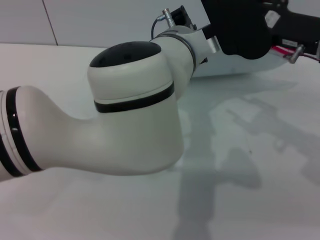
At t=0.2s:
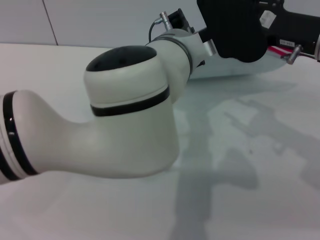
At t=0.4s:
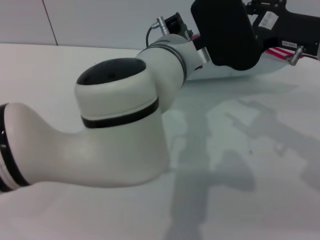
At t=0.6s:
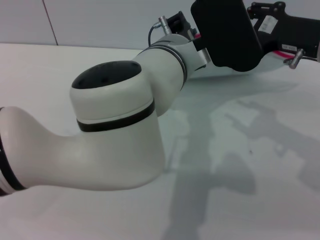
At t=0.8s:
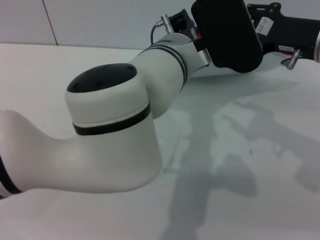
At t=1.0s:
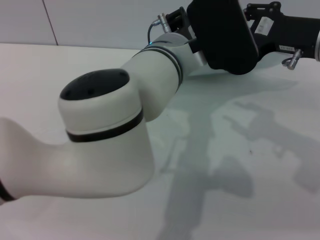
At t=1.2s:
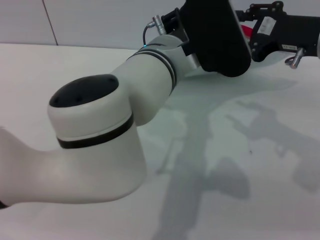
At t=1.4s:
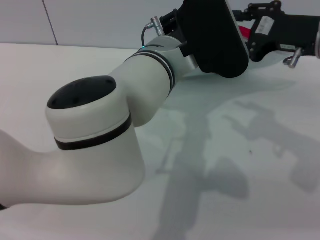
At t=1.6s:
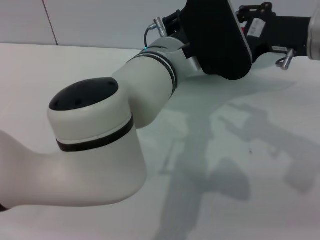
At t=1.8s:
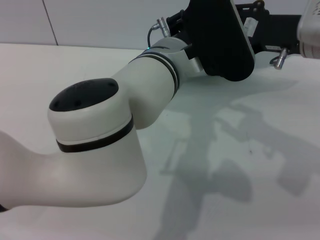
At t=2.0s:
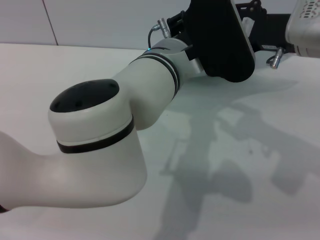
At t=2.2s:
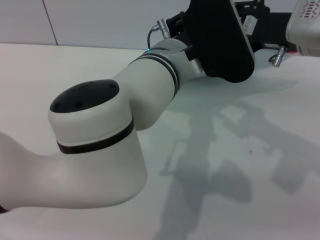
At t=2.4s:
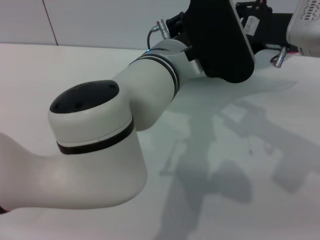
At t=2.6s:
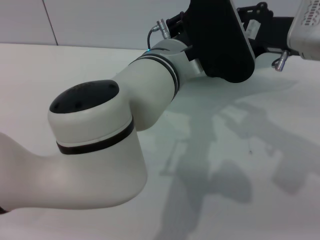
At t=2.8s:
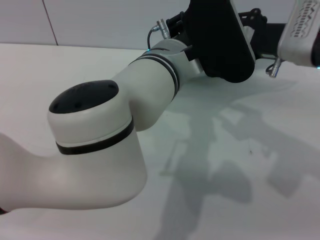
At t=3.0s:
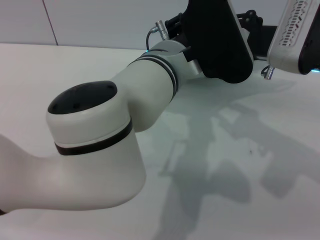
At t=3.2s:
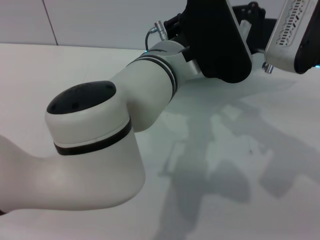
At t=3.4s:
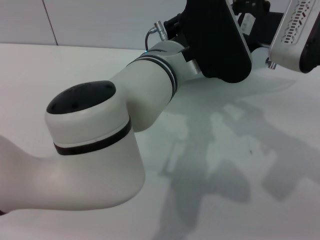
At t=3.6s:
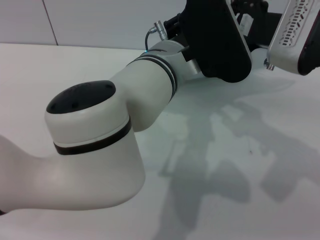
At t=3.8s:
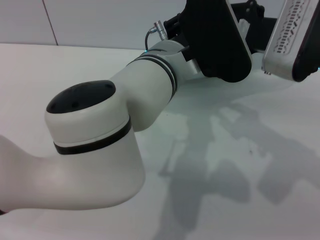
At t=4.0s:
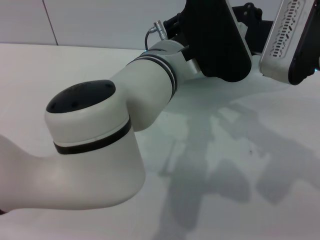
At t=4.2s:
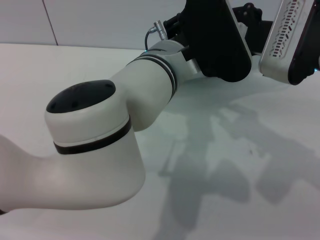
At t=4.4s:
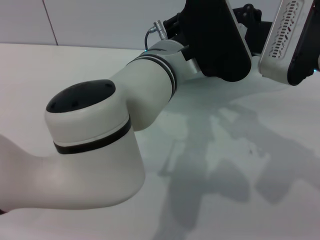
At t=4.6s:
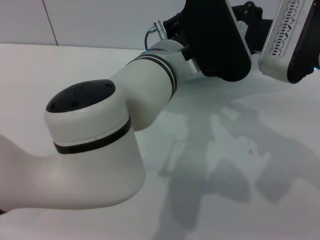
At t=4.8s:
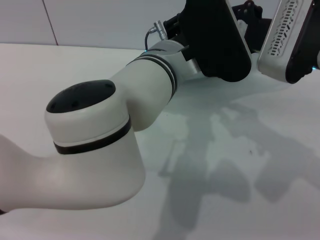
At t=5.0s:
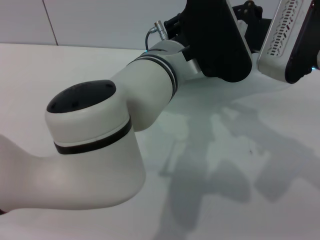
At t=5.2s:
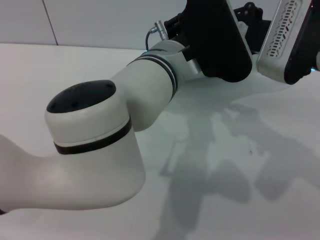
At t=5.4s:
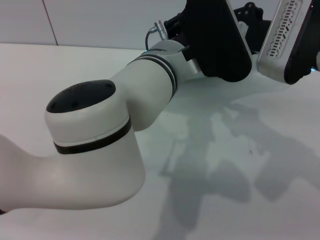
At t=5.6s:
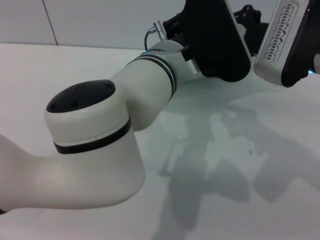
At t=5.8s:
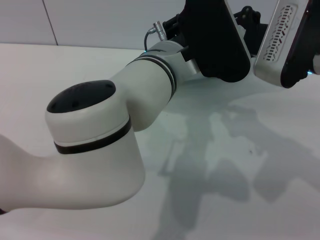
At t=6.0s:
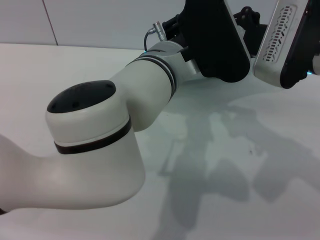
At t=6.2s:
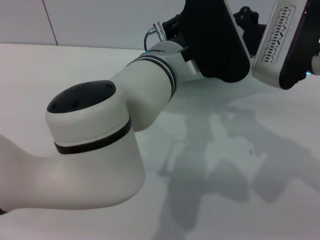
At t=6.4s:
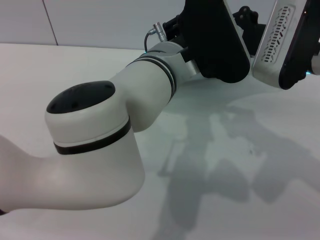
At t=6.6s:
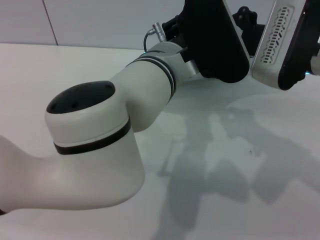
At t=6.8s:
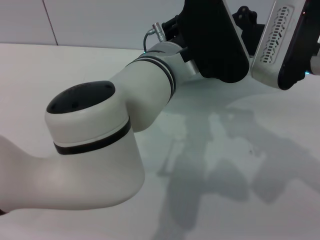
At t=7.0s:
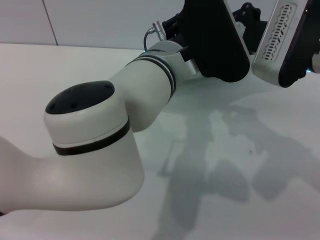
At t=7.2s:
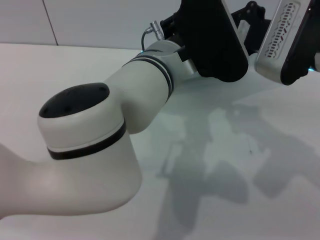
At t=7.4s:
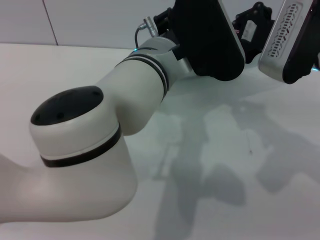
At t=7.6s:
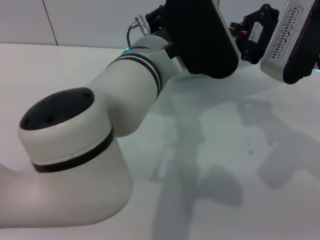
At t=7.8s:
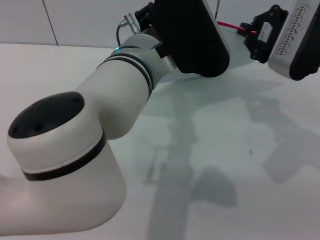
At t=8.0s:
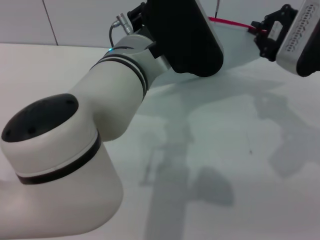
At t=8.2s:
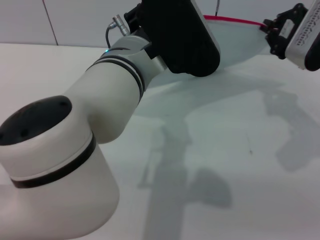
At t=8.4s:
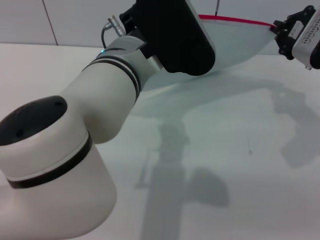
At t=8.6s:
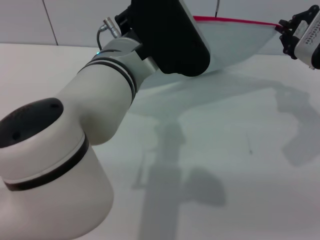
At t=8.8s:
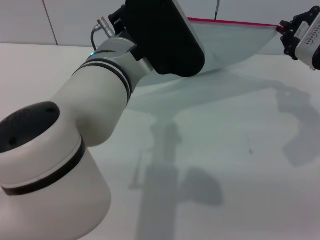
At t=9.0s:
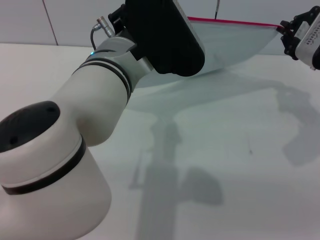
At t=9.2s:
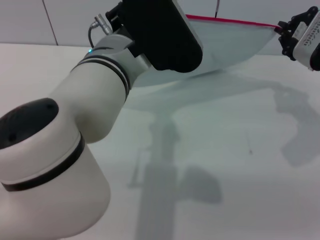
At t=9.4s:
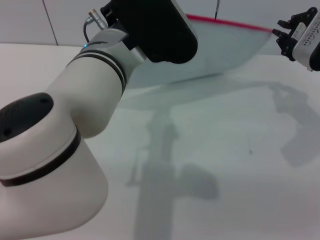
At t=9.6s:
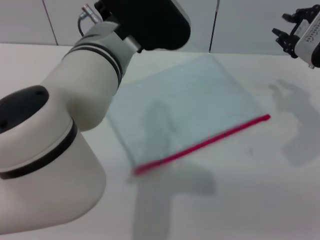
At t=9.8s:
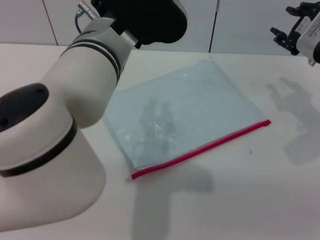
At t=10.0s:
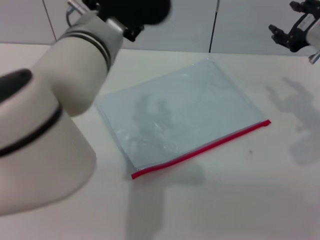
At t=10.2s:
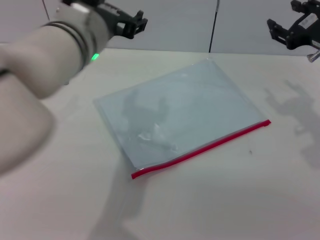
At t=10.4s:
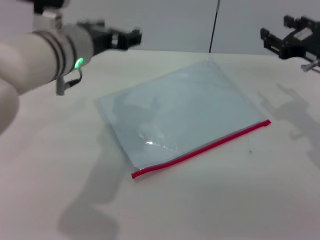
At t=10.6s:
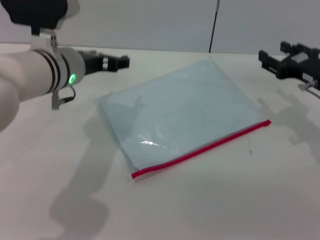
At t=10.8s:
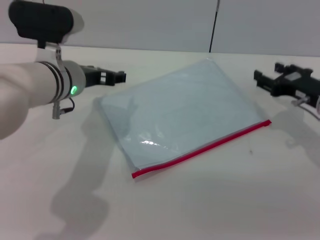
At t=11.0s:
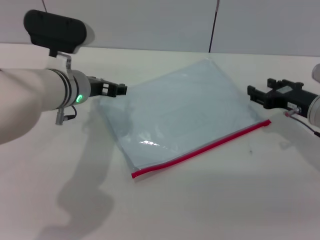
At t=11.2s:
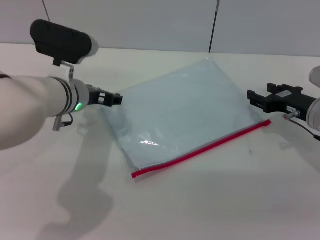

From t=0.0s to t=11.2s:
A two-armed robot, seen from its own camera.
Step, from t=0.0s to t=9.2s: Pulling up the zipper on the transparent plastic bag with the right gripper to close it.
Step, from t=9.4s to t=10.4s: Place the transparent plastic bag.
From t=1.6s to t=3.2s: The grippers make only small movements.
From t=3.2s to t=4.8s: The two grippers keep their place.
From t=4.8s to t=6.4s: The right gripper closes its fingers.
From t=6.4s to t=8.0s: The right gripper shifts by about 5 cm.
From t=9.6s to t=11.2s: The left gripper heads downward, to the left and forward, covering some 20 cm, and opens. The right gripper moves downward, roughly 10 cm, and opens up.

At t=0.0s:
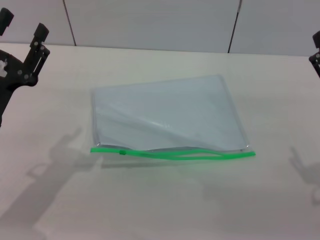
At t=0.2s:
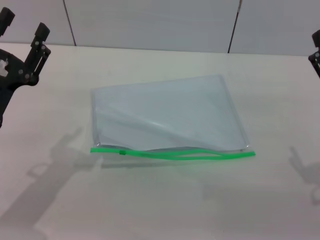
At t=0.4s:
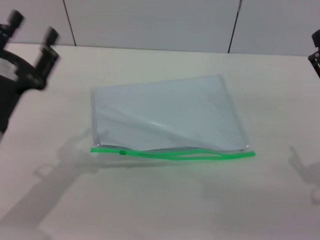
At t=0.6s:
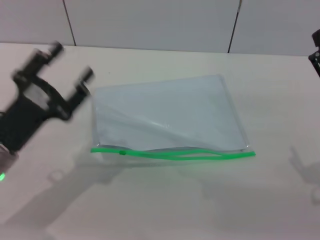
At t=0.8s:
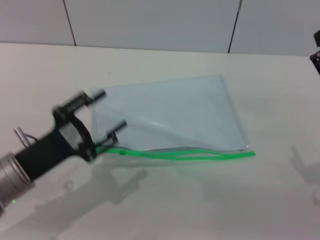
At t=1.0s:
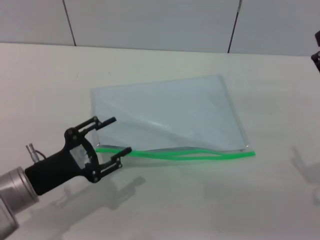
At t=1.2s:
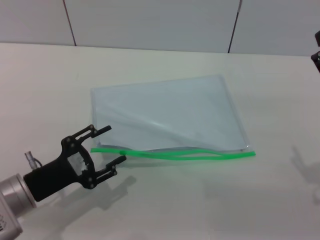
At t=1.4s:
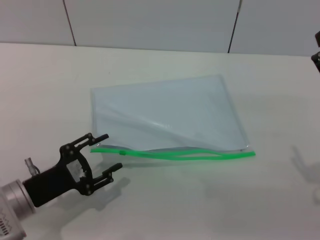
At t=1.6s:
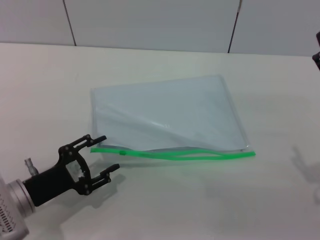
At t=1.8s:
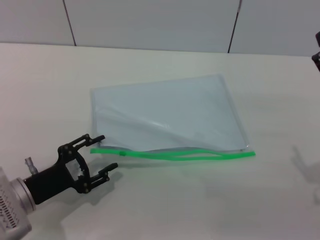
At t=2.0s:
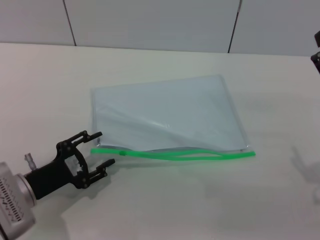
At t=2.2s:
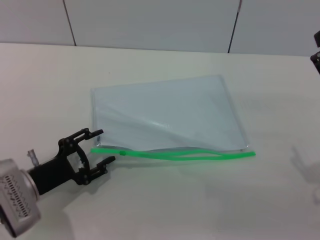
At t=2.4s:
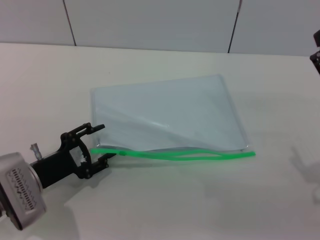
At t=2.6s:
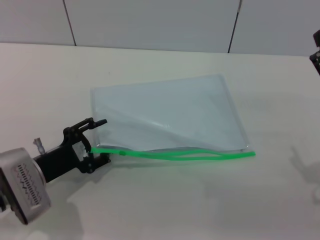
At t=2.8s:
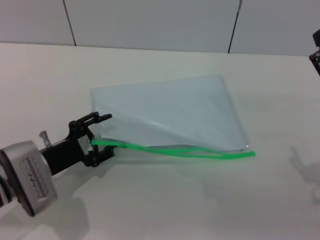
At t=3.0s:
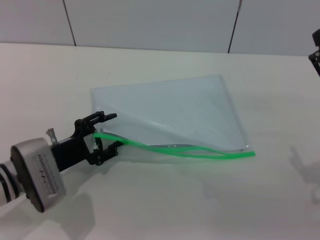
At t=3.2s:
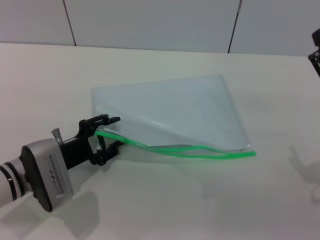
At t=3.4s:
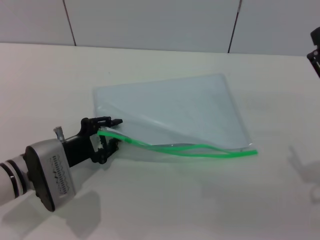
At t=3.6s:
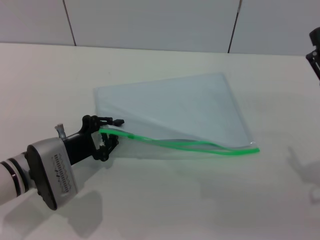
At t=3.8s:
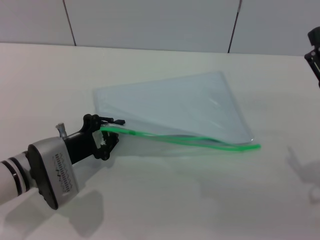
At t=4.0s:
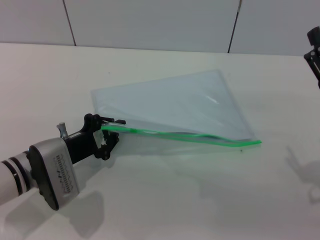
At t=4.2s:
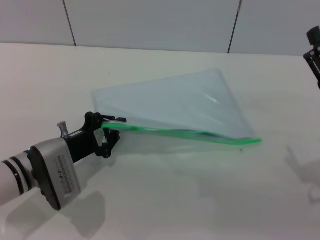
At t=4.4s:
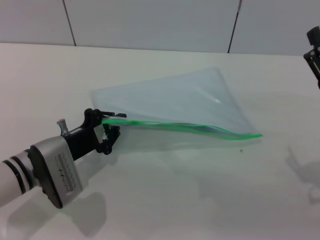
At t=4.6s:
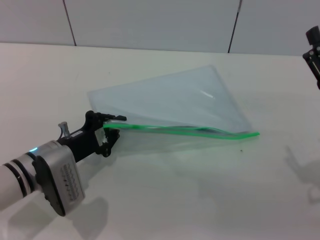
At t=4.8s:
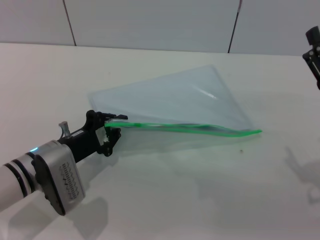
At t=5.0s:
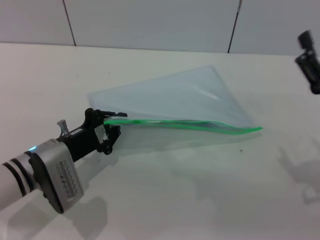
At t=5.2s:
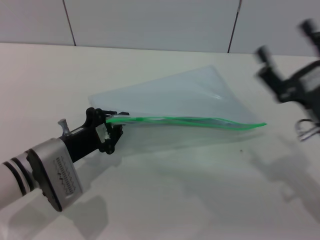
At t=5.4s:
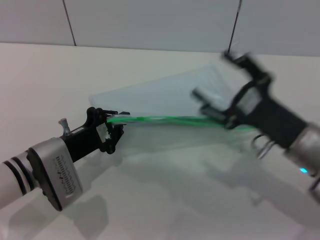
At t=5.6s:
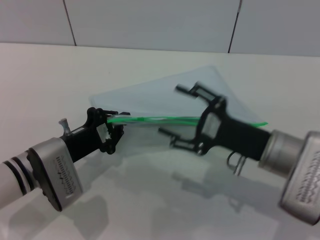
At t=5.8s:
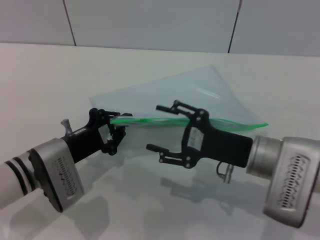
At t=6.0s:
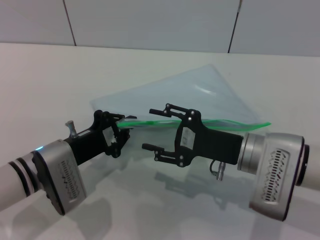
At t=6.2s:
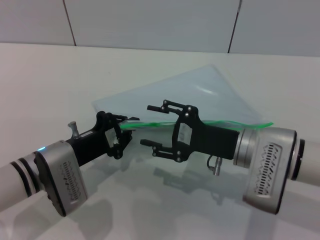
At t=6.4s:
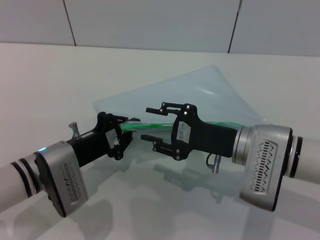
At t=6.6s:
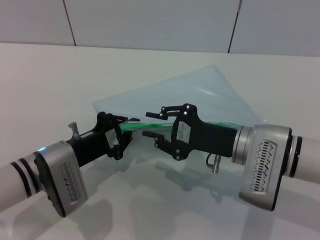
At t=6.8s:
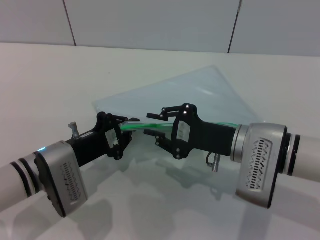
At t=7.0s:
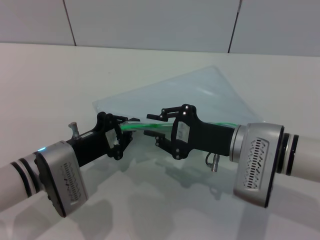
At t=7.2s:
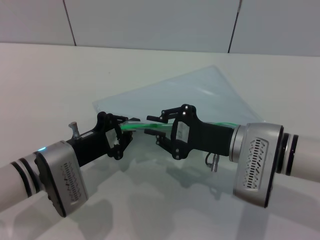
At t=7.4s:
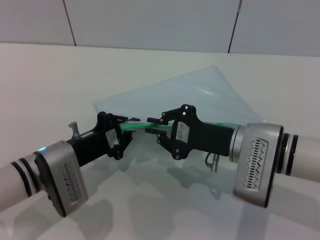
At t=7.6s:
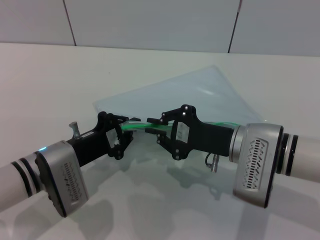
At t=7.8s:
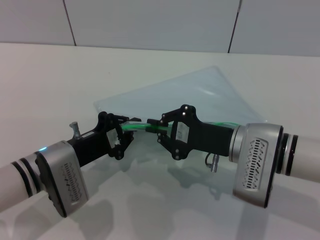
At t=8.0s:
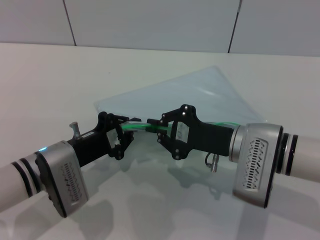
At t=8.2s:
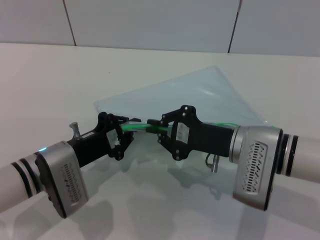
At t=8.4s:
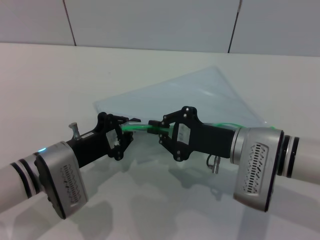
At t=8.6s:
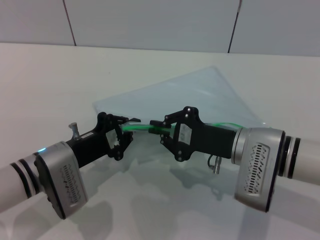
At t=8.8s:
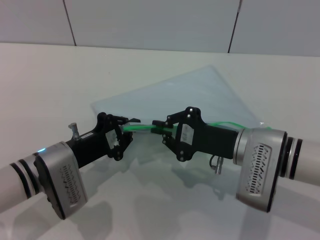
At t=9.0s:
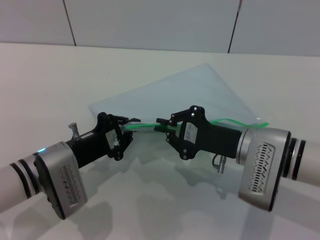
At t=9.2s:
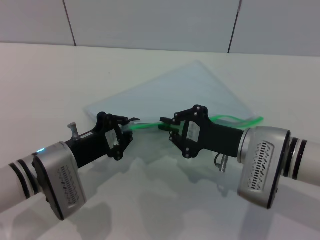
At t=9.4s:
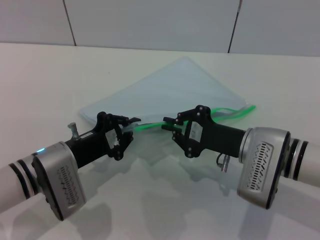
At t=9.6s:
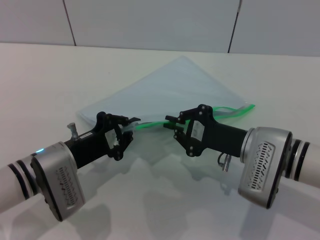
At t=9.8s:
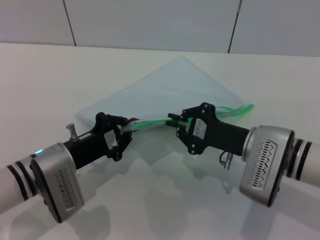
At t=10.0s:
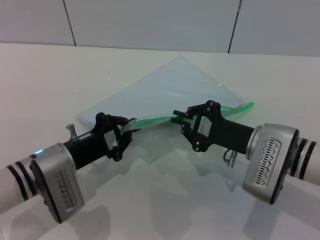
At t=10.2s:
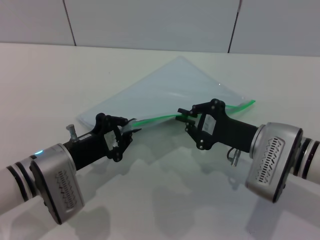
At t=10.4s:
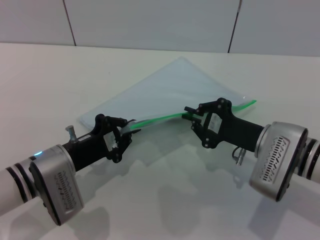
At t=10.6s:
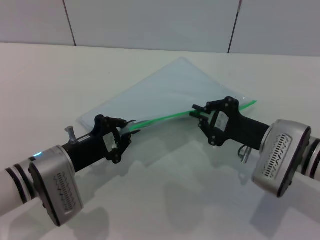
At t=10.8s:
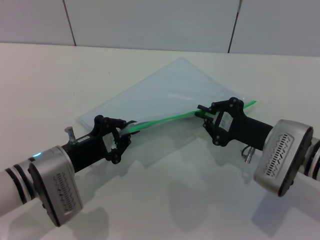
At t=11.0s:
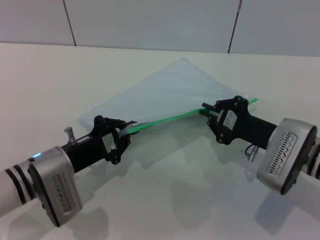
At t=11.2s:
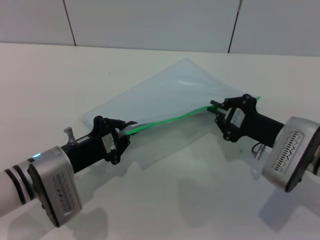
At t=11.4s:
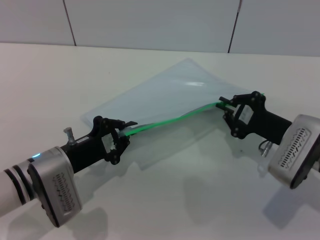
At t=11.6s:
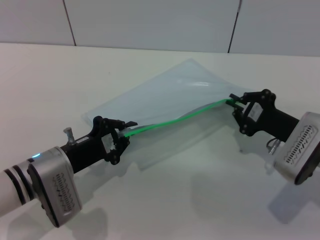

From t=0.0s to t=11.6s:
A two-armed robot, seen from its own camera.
Step, from t=0.0s to t=5.6s: Pick up the transparent plastic bag with the left gripper.
From t=0.0s to t=1.4s: The left gripper moves downward, roughly 5 cm.
From t=1.4s to t=2.8s: The left gripper moves forward, roughly 5 cm.
From t=2.8s to t=4.4s: The left gripper closes up.
From t=4.4s to t=5.8s: The right gripper shifts about 10 cm to the left.
From t=5.8s to t=7.2s: The right gripper closes.
From t=7.2s to t=8.8s: Both grippers stay put.
From t=8.8s to t=10.2s: The grippers move only a little.
From t=10.2s to t=11.6s: The right gripper shifts about 5 cm to the right.
